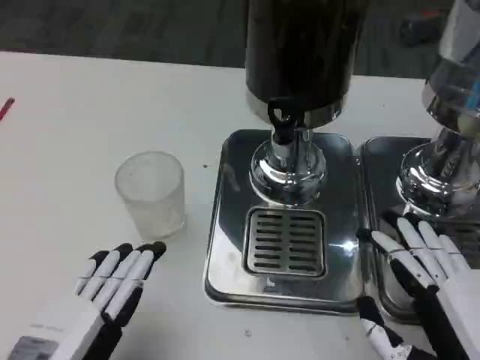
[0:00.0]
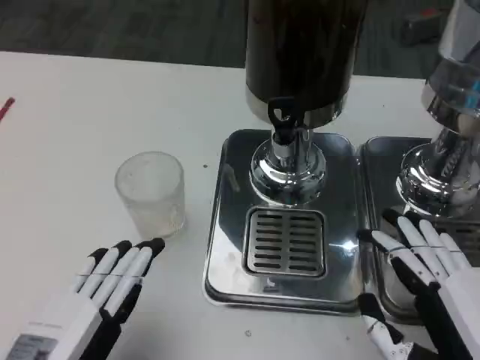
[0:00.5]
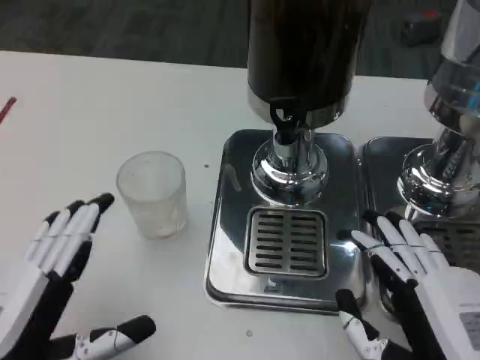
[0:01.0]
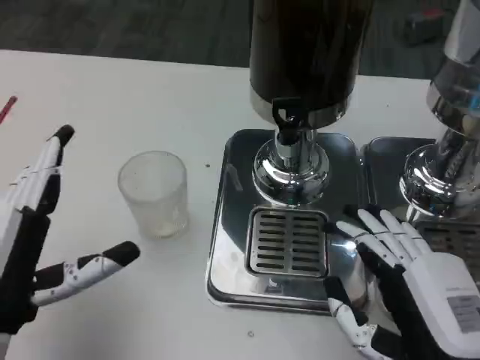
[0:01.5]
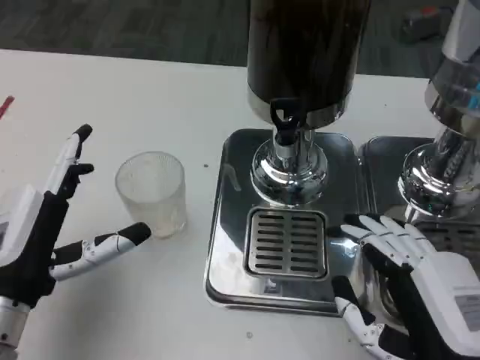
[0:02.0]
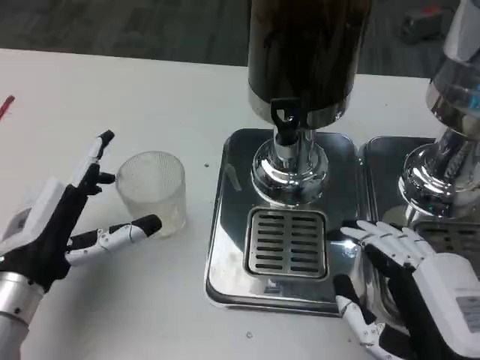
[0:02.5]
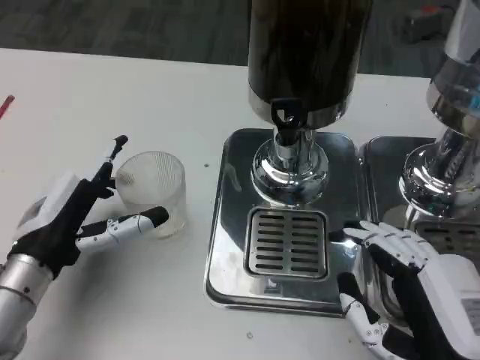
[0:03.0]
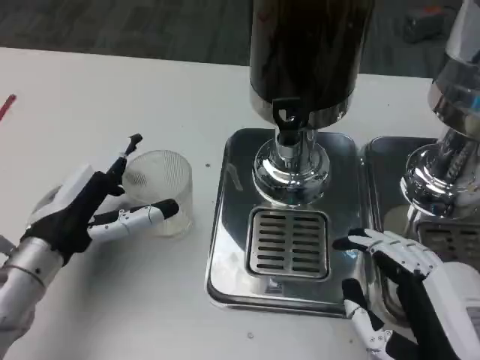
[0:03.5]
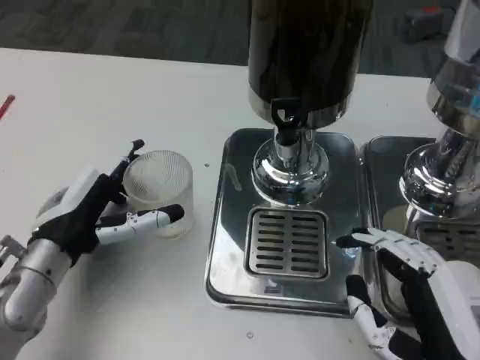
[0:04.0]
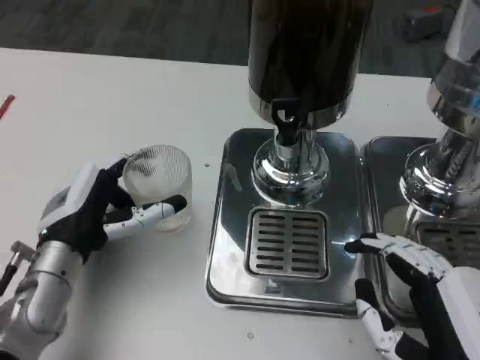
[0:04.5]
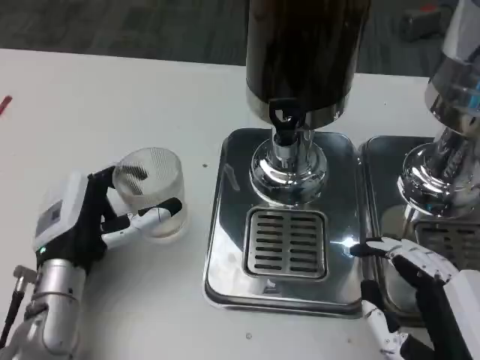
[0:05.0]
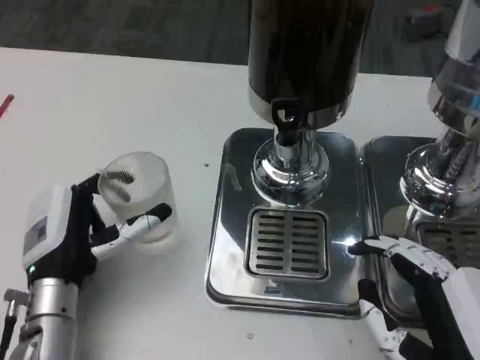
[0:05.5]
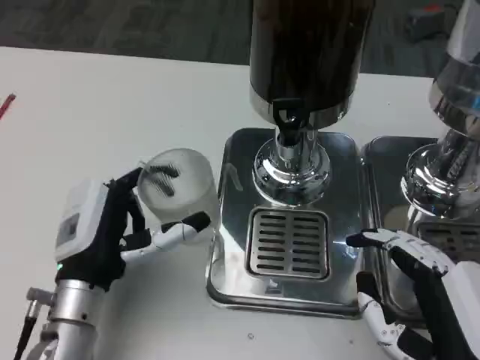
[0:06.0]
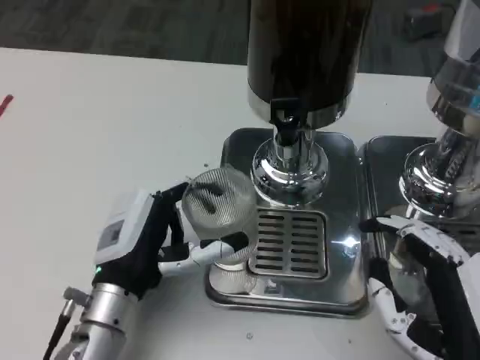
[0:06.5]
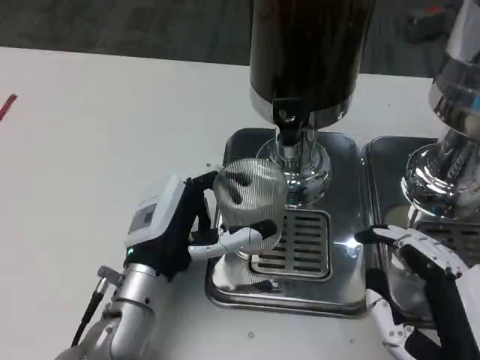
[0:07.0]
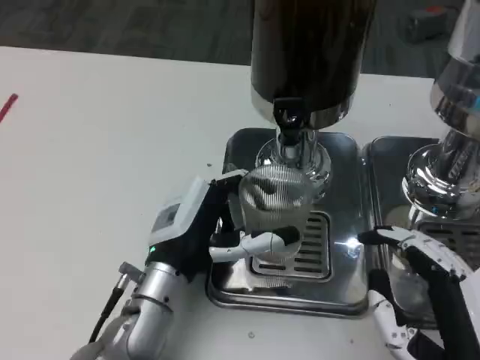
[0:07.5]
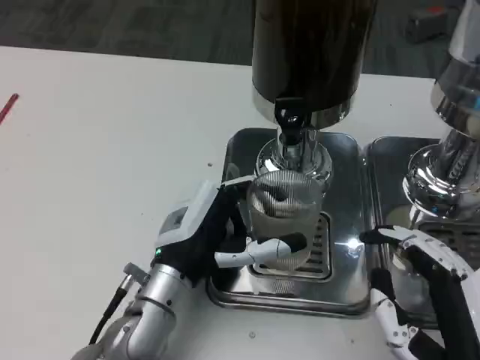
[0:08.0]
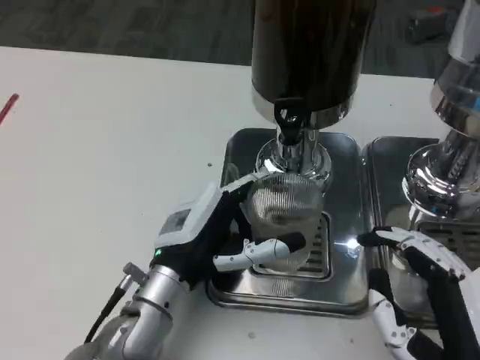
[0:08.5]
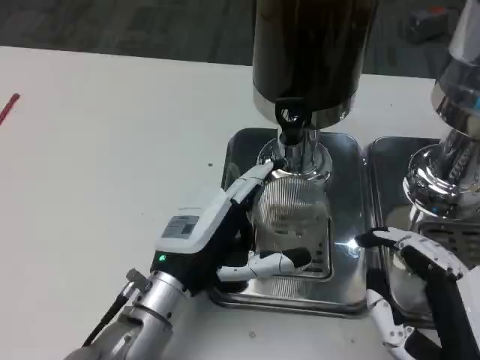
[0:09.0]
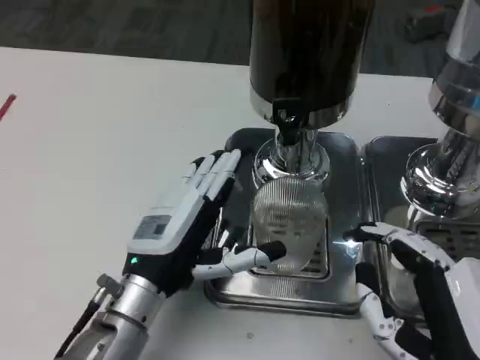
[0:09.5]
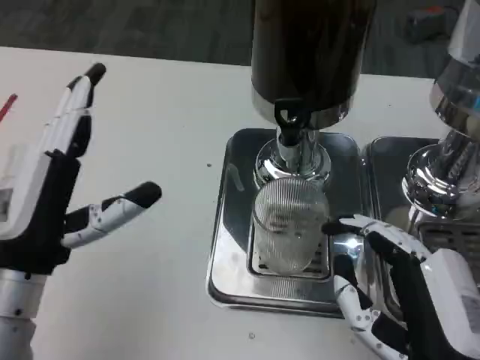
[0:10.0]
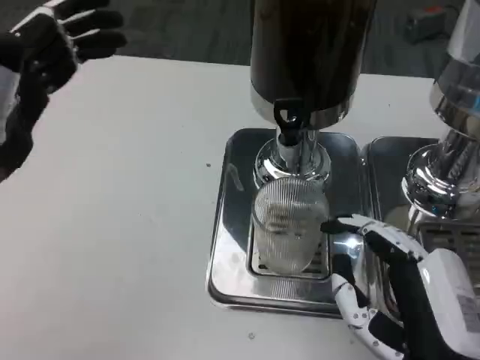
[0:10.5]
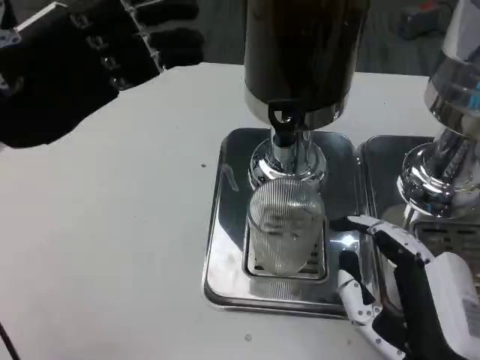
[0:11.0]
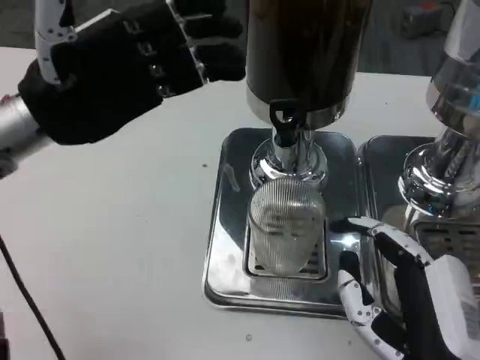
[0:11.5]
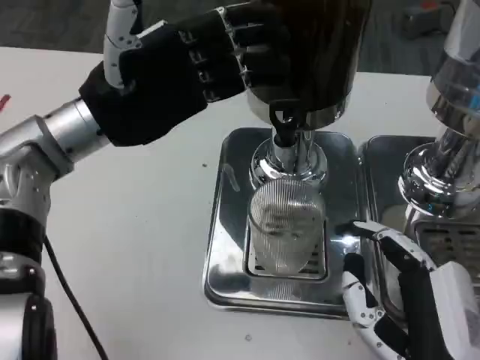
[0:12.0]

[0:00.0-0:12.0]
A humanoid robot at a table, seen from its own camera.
Task of the whole recording: Grasp the cup under the faucet to collect the drink, then remove the cup.
0:00.0 to 0:02.0: The left hand is displaced forward by some 10 cm.
0:02.0 to 0:04.0: The left hand moves forward, roughly 5 cm.
0:04.0 to 0:06.0: The left hand ends up some 5 cm from where it was.
0:06.0 to 0:08.0: The left hand travels to the right by about 5 cm.
0:08.0 to 0:10.0: The left hand goes roughly 15 cm to the left and upward.
0:10.0 to 0:12.0: The left hand travels forward and upward by about 15 cm.

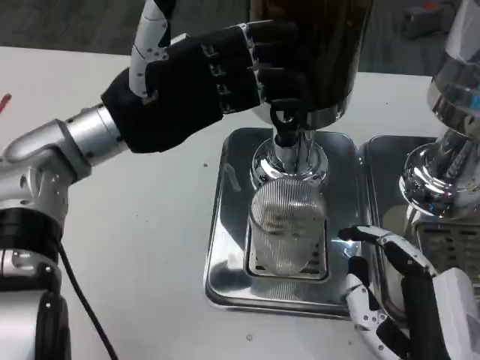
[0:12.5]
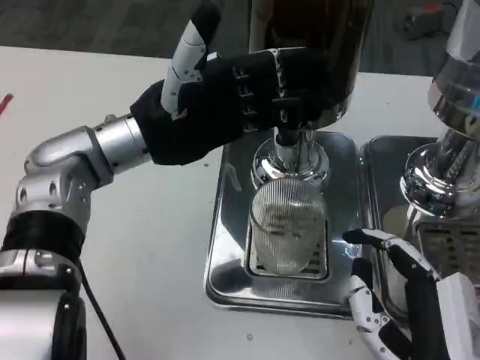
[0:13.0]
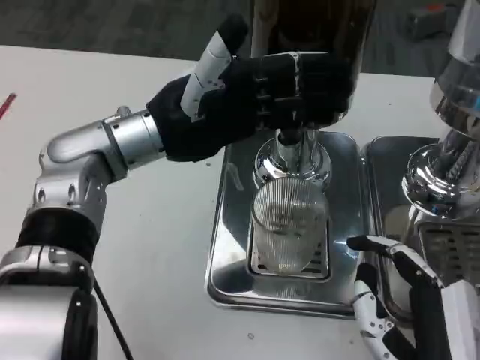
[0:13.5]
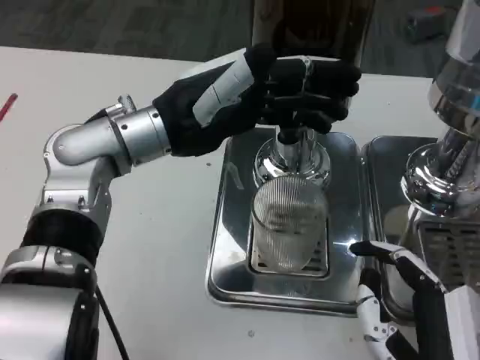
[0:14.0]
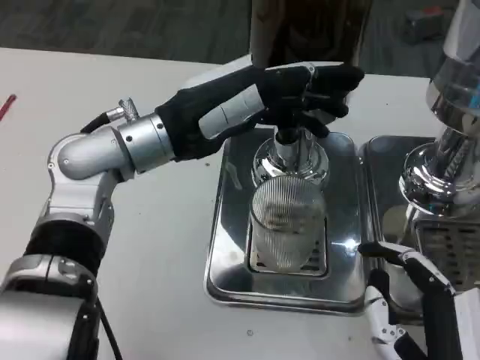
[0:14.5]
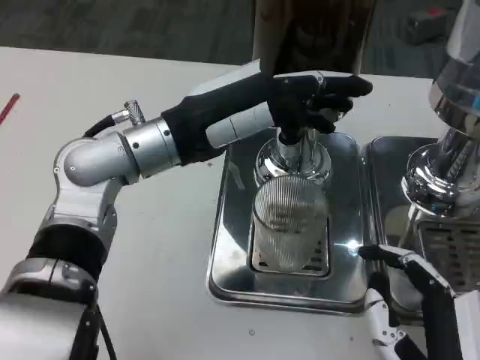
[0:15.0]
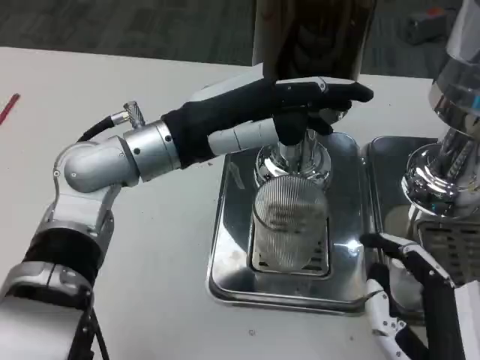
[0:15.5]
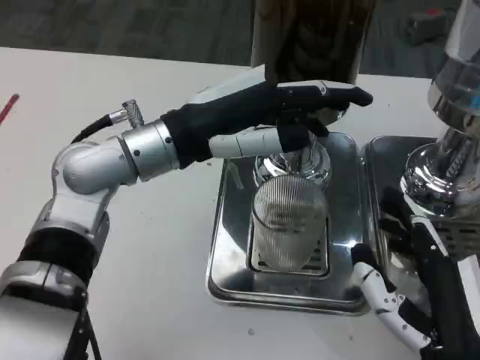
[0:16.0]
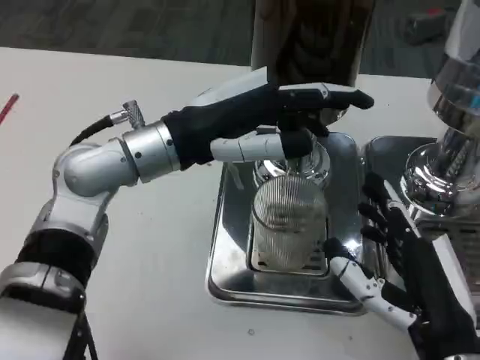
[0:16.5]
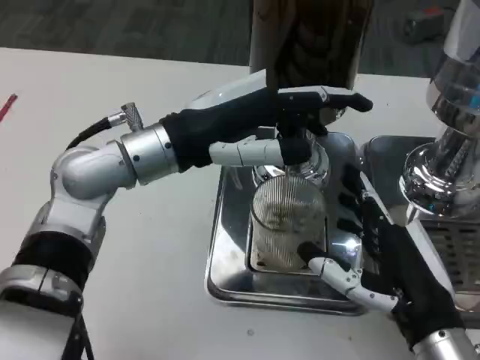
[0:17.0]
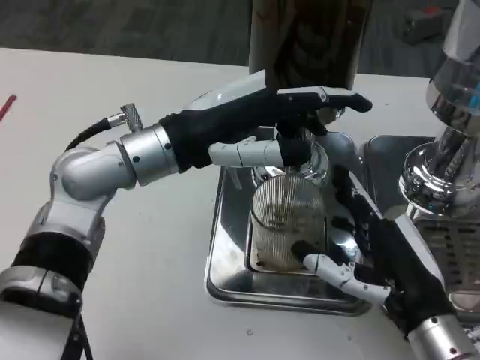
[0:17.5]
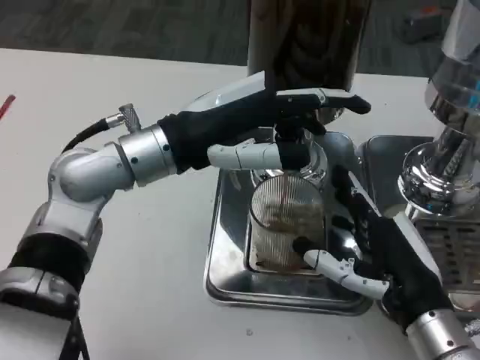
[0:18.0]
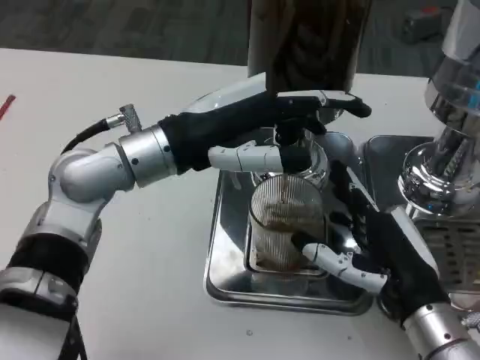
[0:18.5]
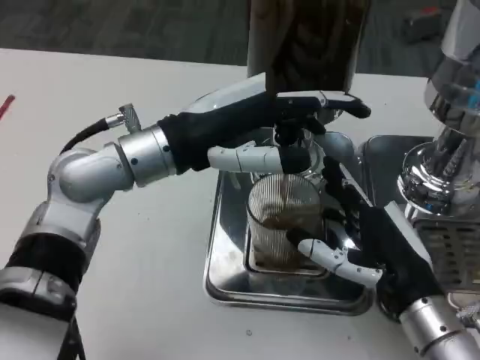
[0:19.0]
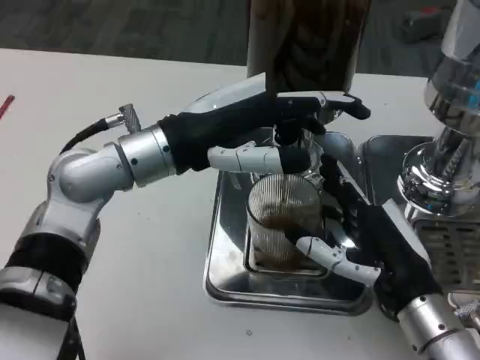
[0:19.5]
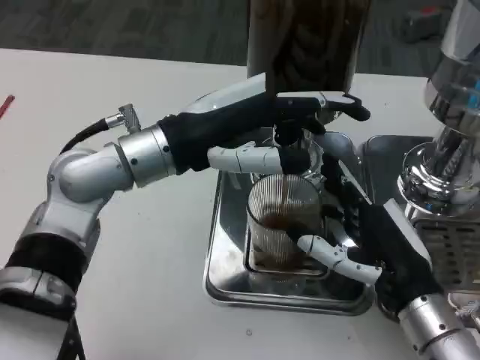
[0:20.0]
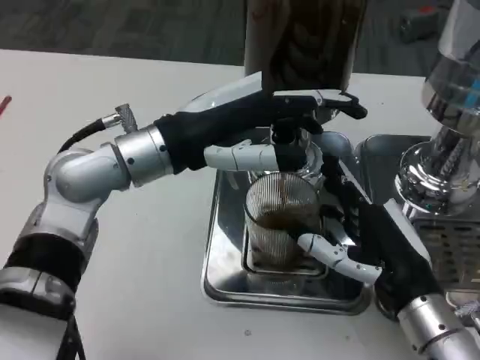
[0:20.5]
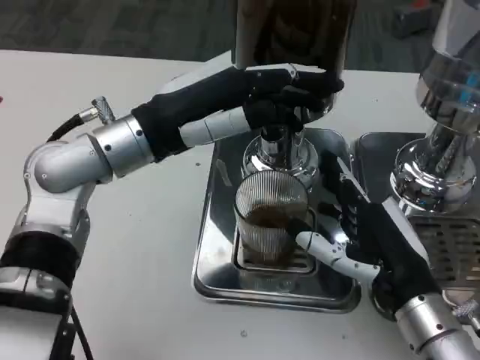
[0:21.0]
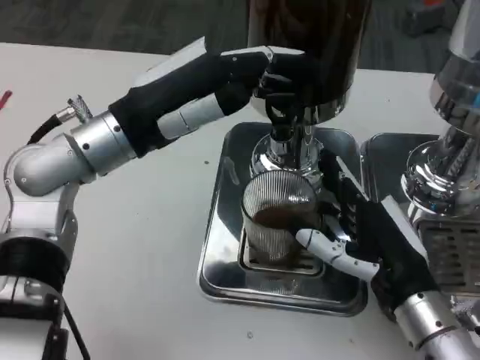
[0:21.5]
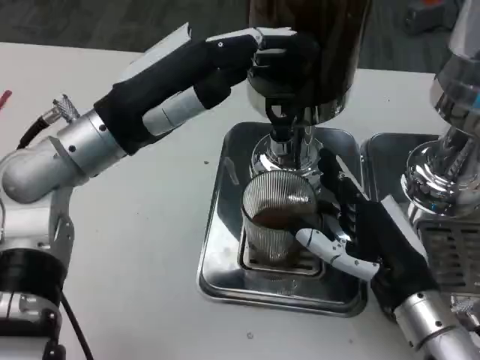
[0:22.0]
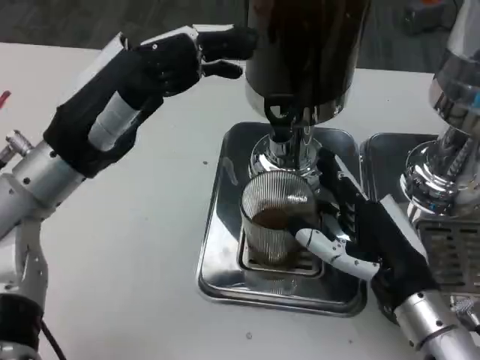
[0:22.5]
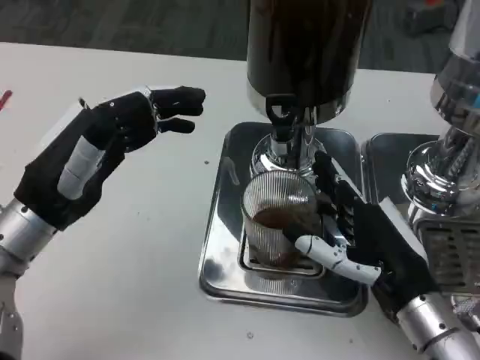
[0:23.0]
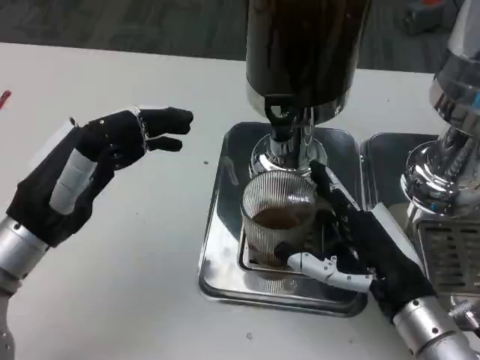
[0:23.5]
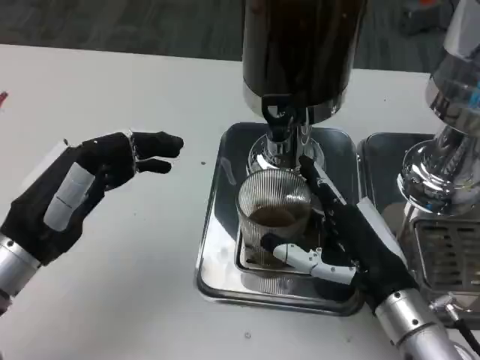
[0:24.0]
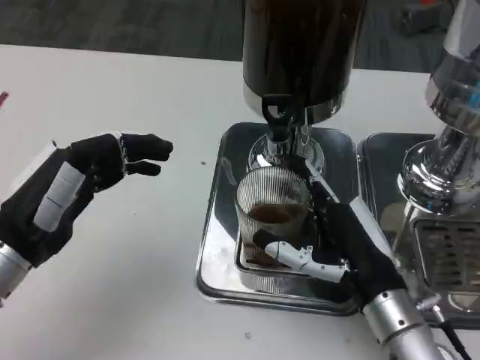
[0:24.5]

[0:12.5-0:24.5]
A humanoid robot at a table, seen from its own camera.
Task of the whole recording: Grasp the cup under the faucet to collect the drink, then remove the cup.
0:14.5 to 0:16.5: The right hand goes roughly 5 cm forward.
0:16.5 to 0:18.5: The right hand is displaced forward by some 5 cm.
0:18.5 to 0:20.5: Neither hand changes place.
0:20.5 to 0:22.5: The left hand goes some 5 cm to the left.
0:22.5 to 0:24.5: The left hand is displaced downward and backward by about 10 cm.

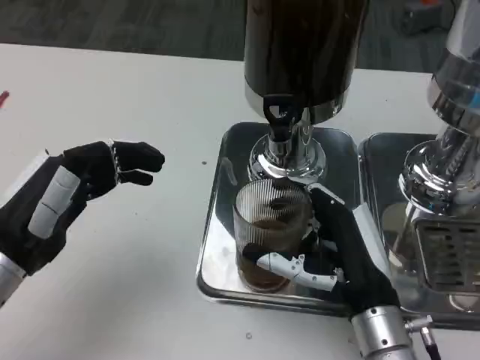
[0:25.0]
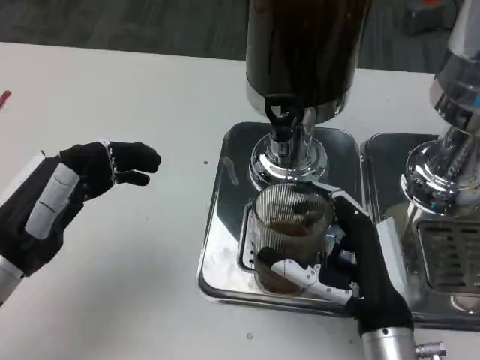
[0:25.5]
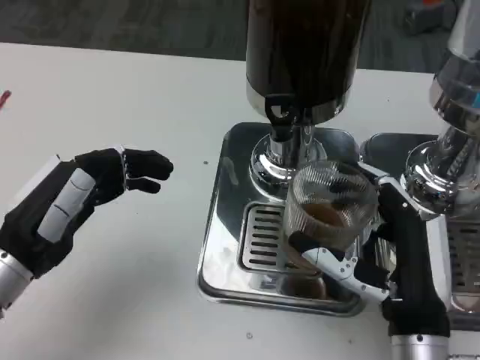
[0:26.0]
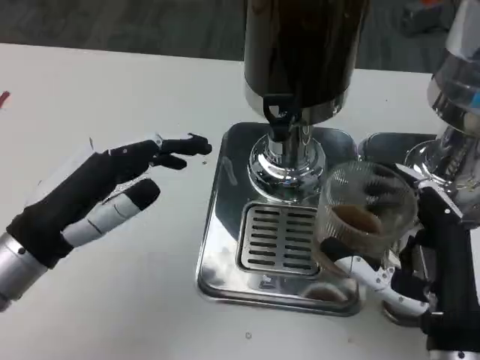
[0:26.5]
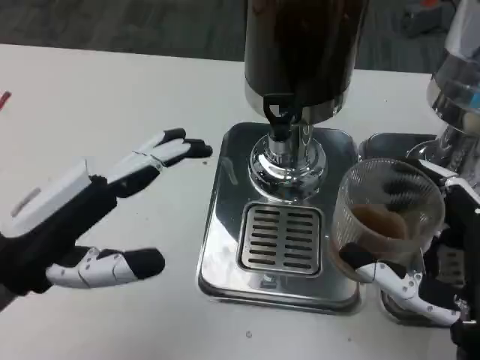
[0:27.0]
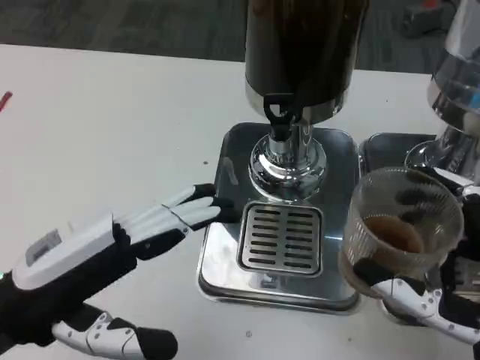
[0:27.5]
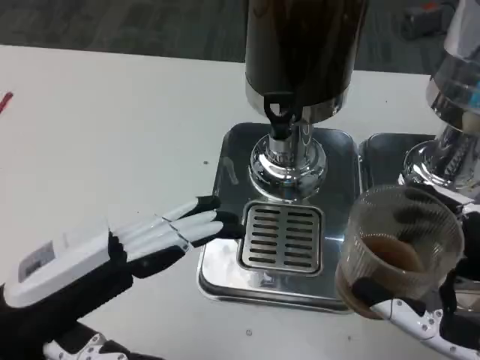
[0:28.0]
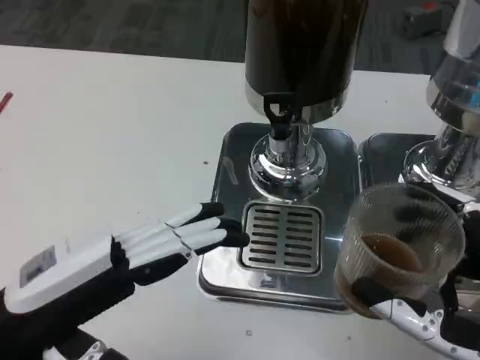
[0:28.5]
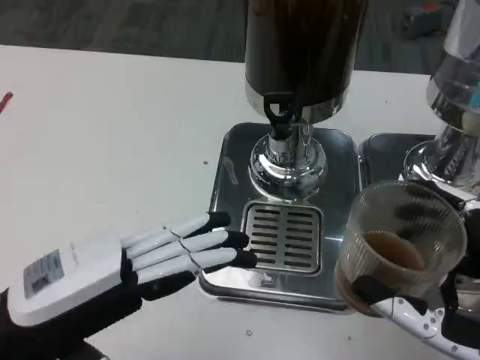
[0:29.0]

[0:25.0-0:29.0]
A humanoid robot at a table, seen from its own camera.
Task of the whole recording: Grasp the cup under the faucet to collect the drink, then remove the cup.
0:25.0 to 0:27.0: The right hand travels backward and to the right by about 10 cm. The left hand changes place by approximately 5 cm.
